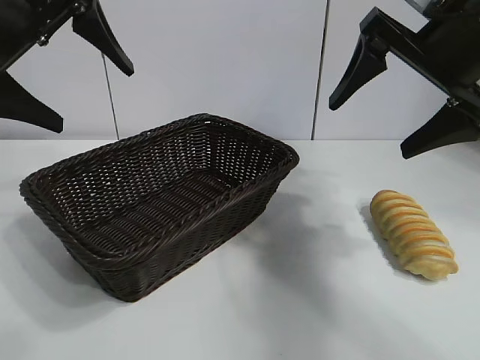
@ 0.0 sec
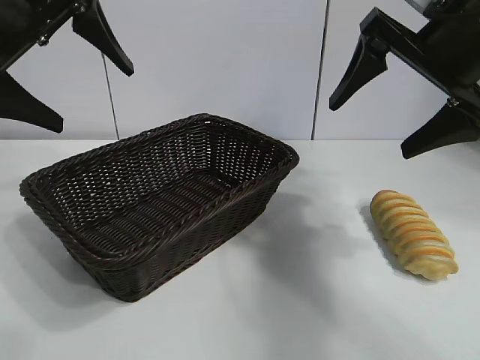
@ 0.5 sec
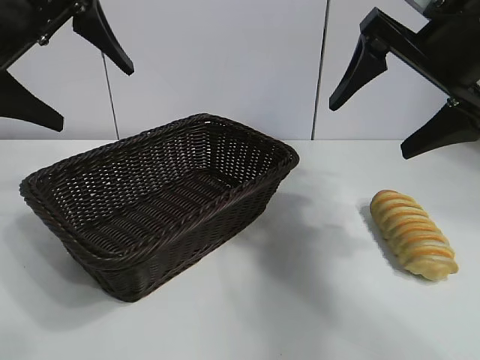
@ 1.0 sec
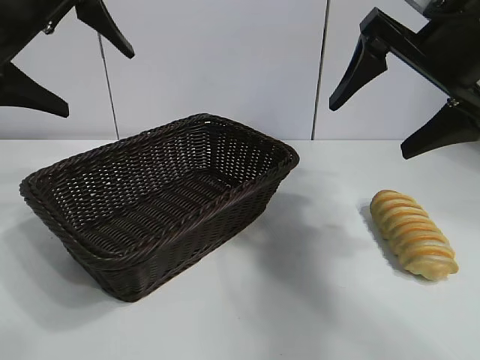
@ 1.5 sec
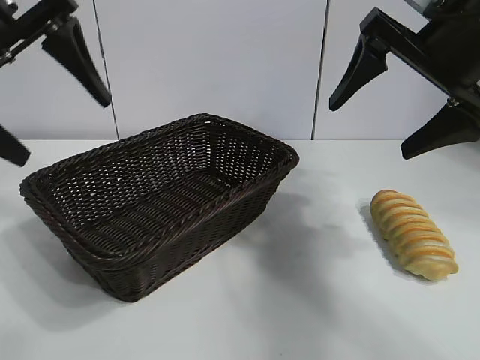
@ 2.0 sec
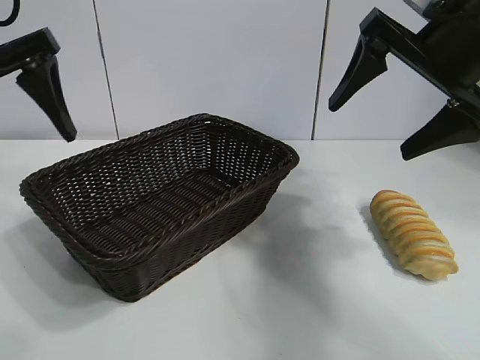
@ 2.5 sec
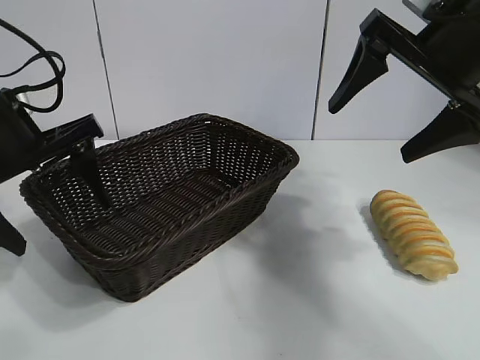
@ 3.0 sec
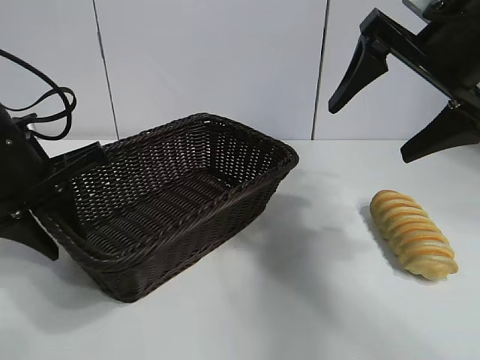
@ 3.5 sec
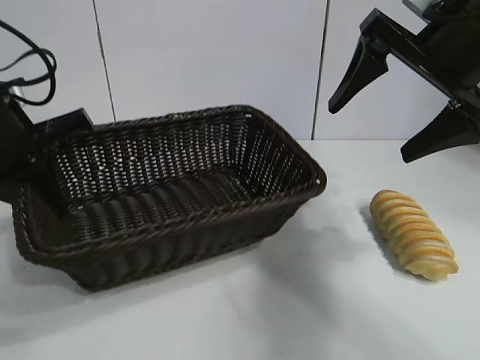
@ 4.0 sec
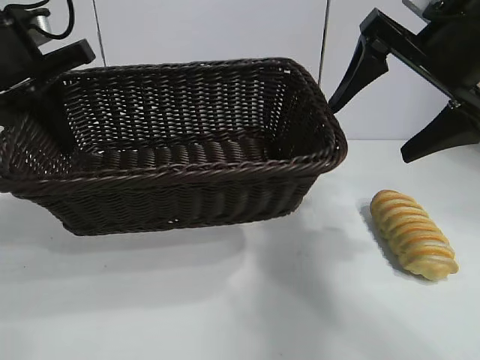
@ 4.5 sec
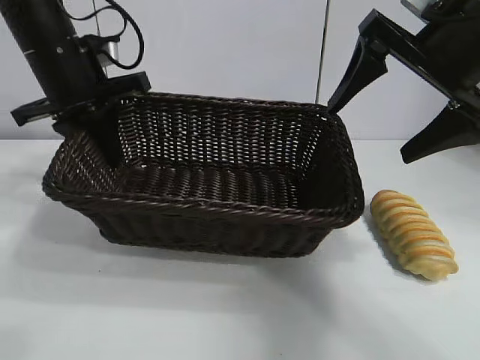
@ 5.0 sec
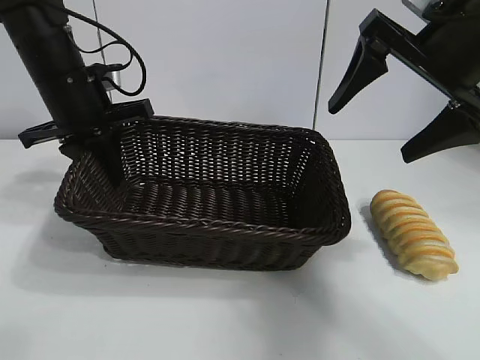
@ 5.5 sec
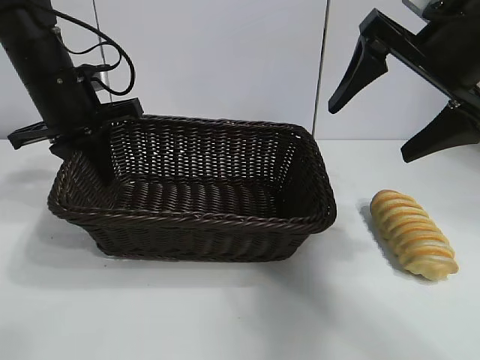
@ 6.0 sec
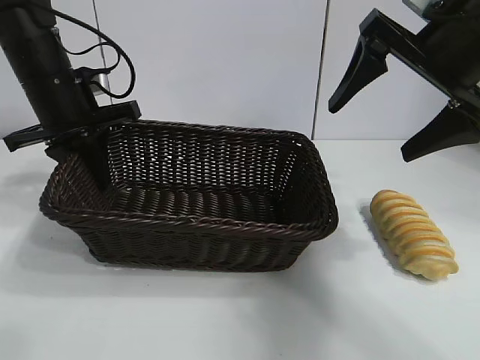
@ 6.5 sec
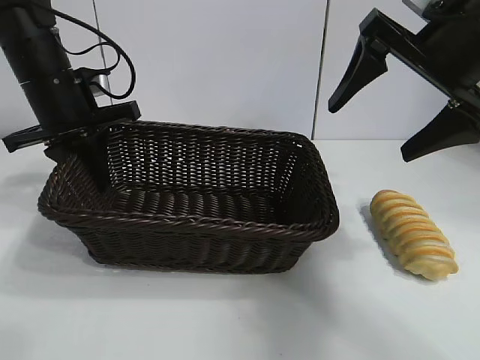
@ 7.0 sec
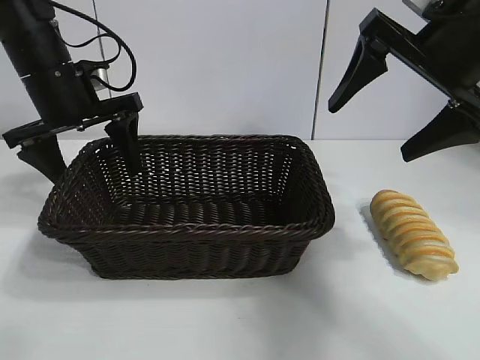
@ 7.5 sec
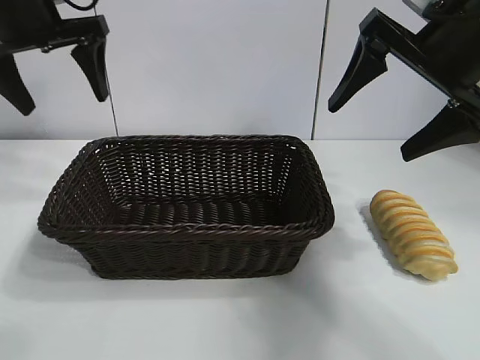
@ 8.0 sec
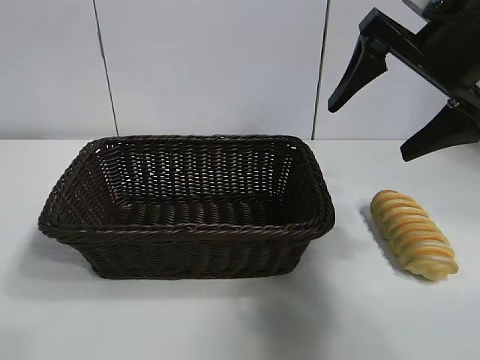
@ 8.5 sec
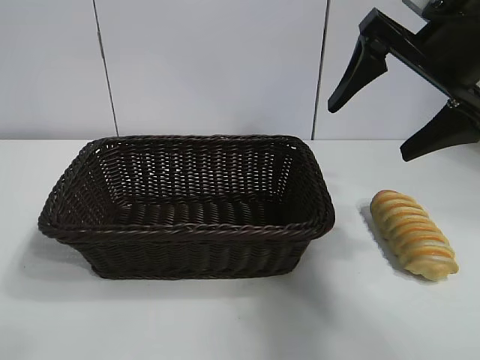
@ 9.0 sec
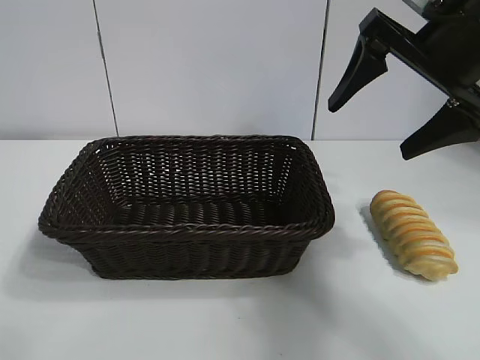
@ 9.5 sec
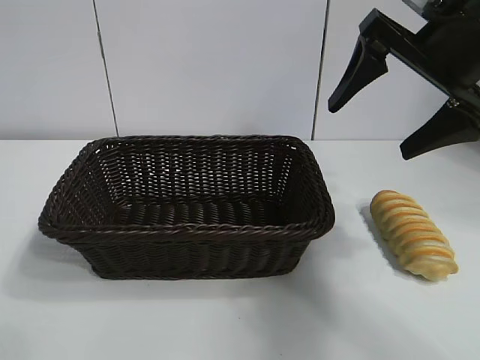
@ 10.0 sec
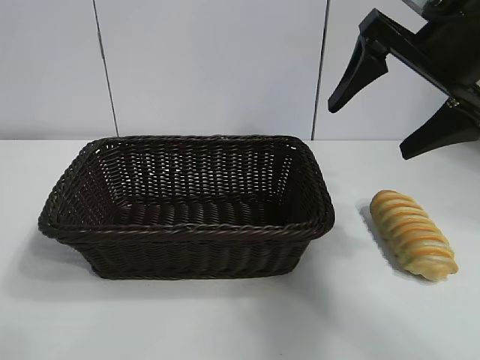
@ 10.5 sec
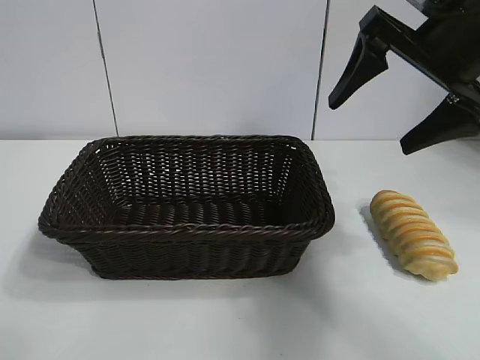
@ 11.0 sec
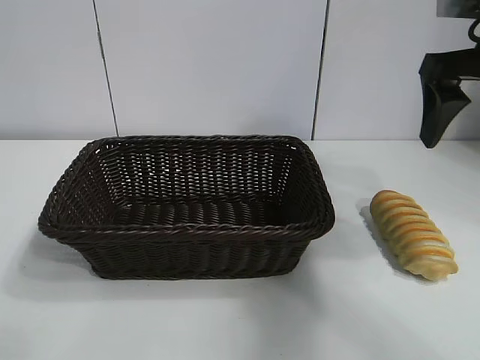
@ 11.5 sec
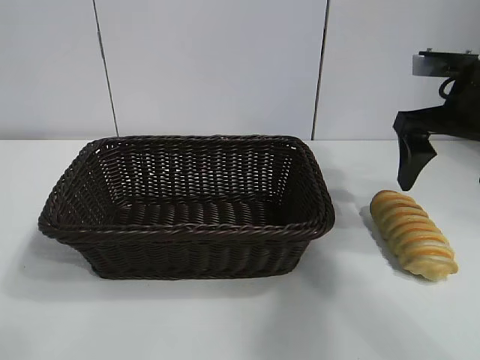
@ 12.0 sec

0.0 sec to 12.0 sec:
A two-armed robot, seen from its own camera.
Task of the whole recording: pick up the long bread and put it into the basket.
Step, 1.0 sec to 3.5 sec: Grasp the basket with the left gripper.
Step, 4.0 sec to 7.5 sec: Place the basket in the center of the table with the left gripper.

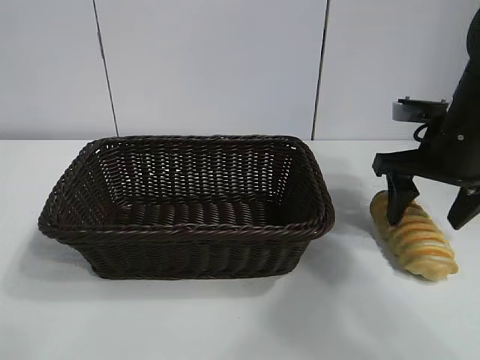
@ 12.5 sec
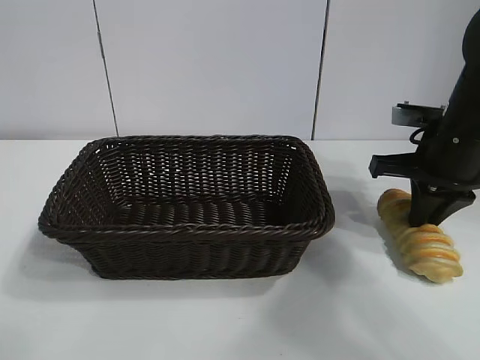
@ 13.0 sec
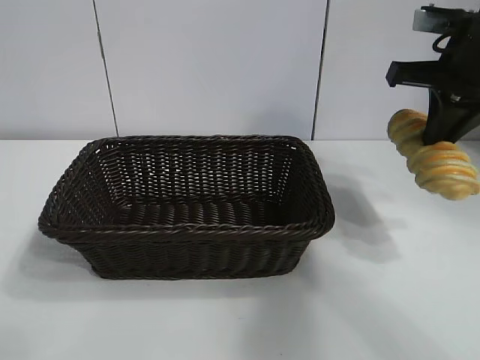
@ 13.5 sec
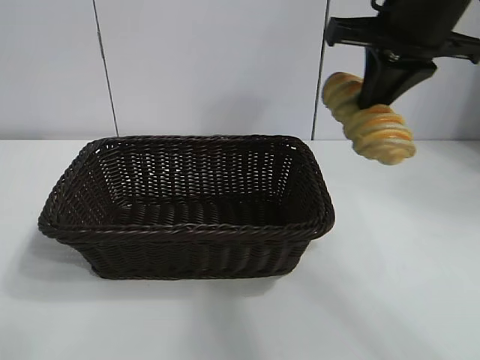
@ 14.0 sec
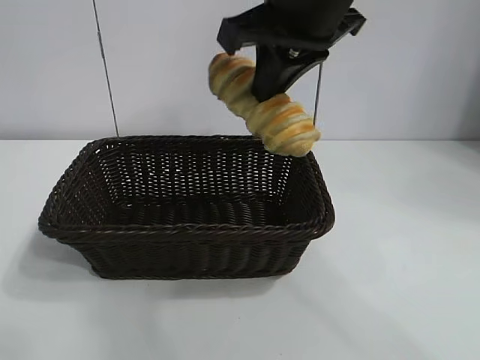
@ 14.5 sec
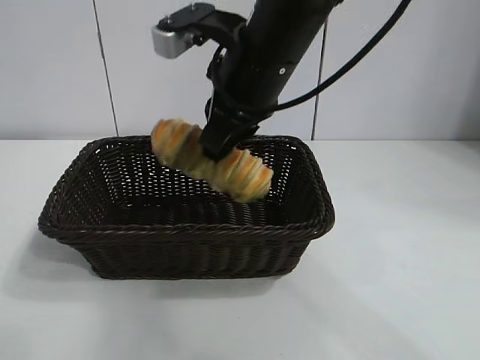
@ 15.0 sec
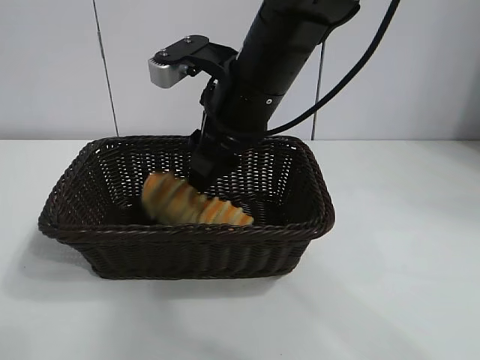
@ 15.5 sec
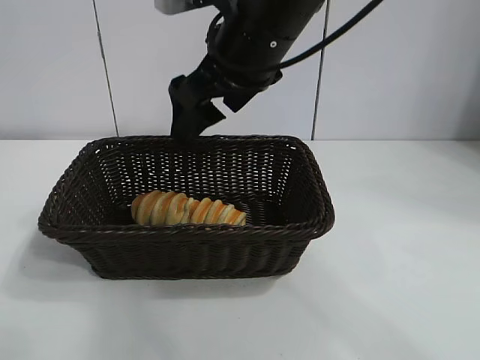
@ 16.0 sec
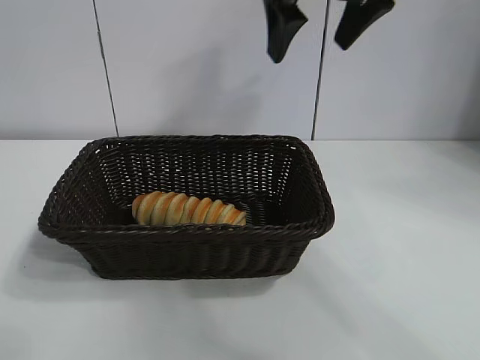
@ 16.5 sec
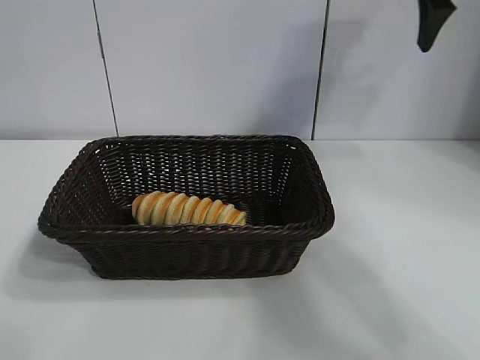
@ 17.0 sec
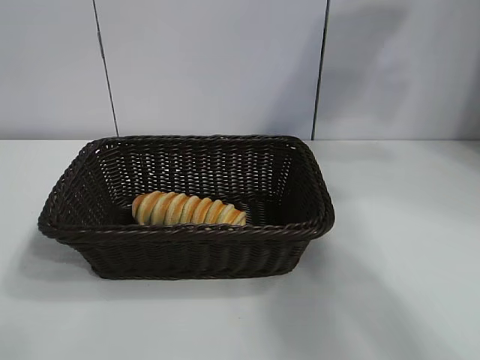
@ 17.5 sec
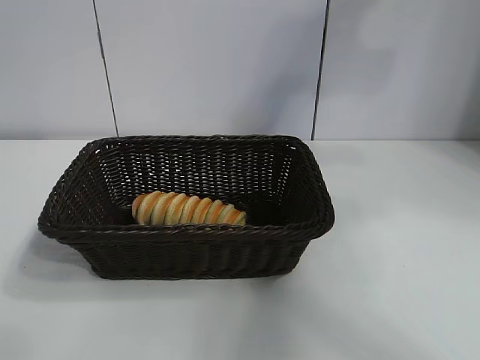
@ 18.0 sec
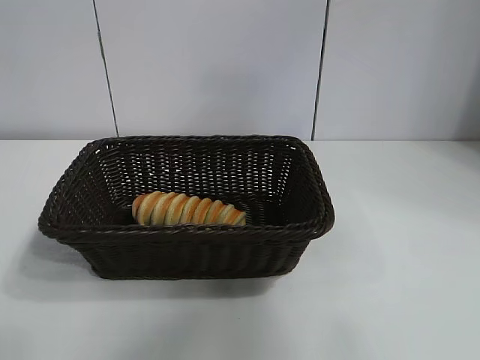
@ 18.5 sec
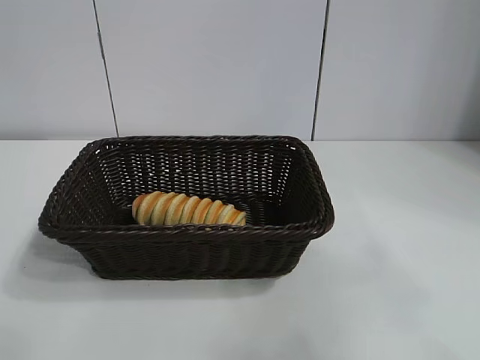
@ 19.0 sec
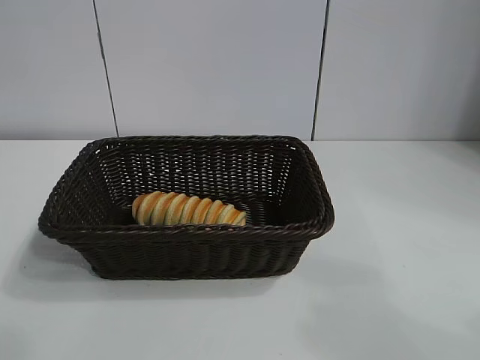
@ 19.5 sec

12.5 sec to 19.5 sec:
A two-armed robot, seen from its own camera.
Task of the whole recording: pick up the long bread and put it into the basket.
Step, 13.0 sec to 15.5 sec: Place the long bread in the basket with right gripper.
